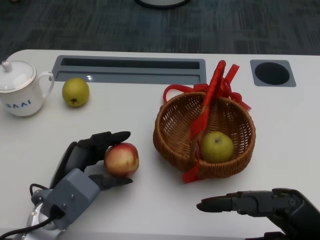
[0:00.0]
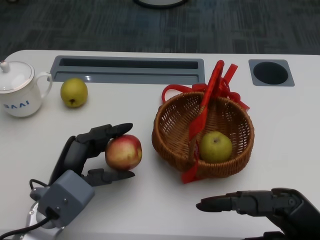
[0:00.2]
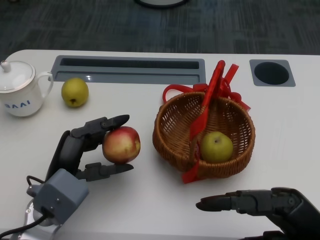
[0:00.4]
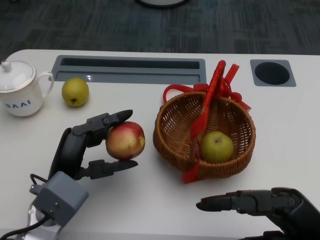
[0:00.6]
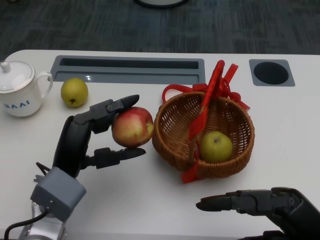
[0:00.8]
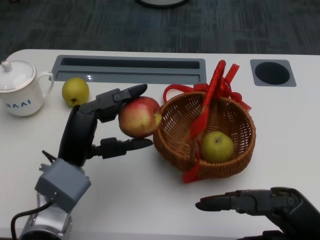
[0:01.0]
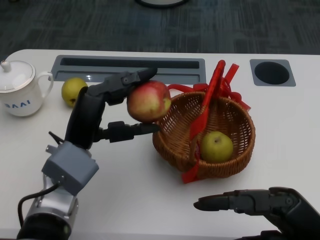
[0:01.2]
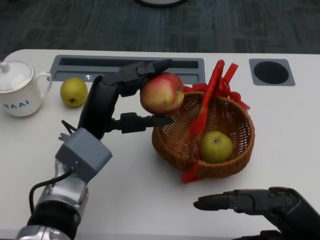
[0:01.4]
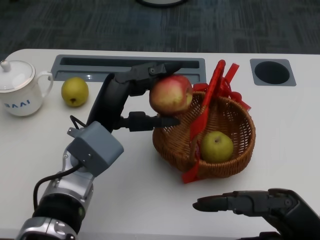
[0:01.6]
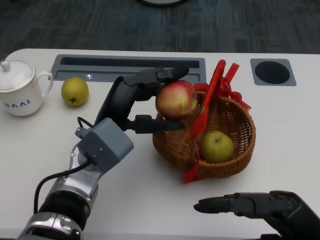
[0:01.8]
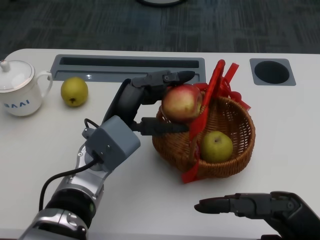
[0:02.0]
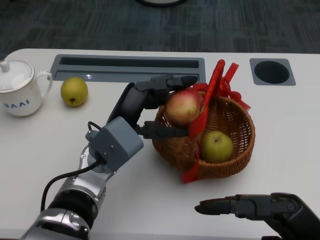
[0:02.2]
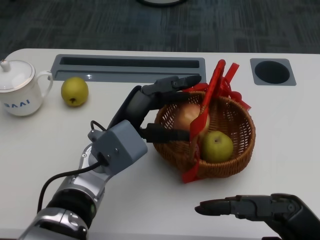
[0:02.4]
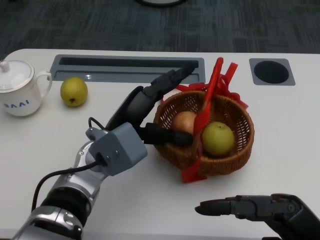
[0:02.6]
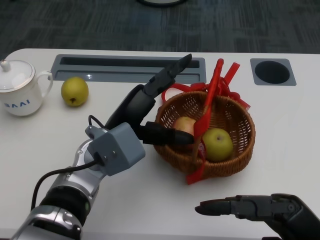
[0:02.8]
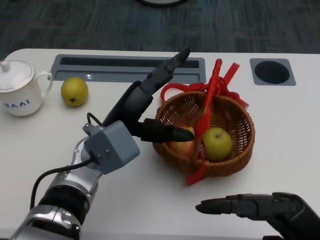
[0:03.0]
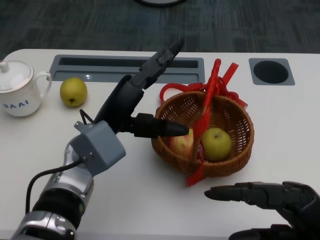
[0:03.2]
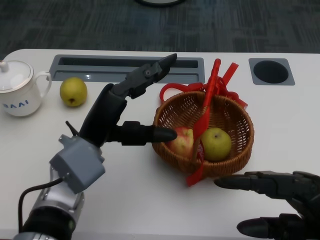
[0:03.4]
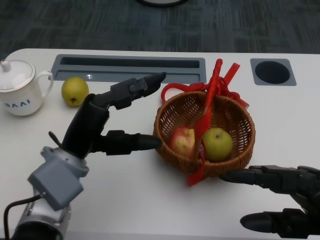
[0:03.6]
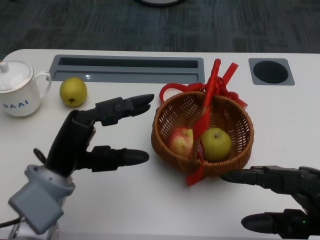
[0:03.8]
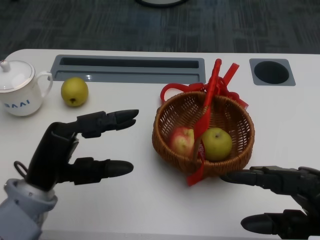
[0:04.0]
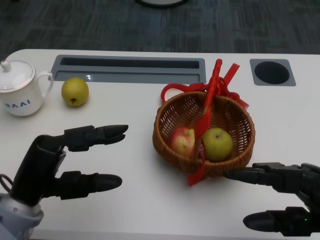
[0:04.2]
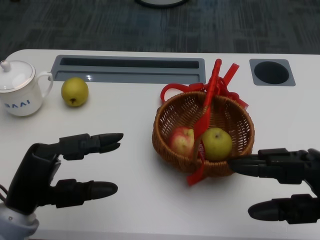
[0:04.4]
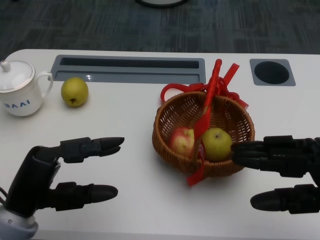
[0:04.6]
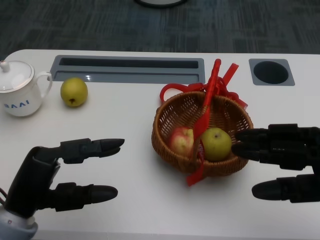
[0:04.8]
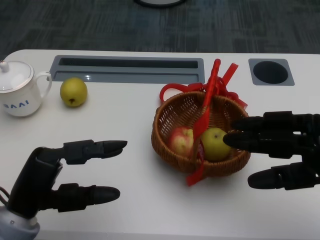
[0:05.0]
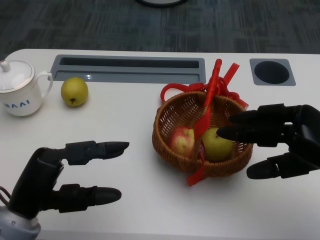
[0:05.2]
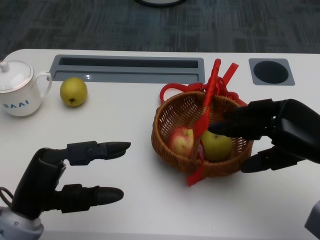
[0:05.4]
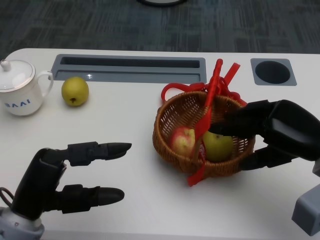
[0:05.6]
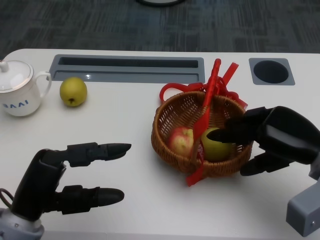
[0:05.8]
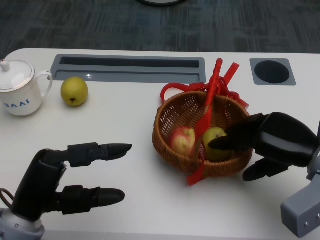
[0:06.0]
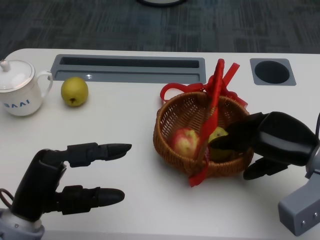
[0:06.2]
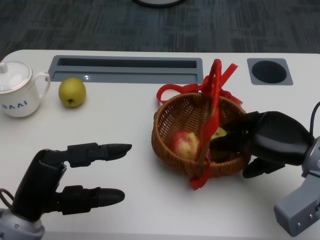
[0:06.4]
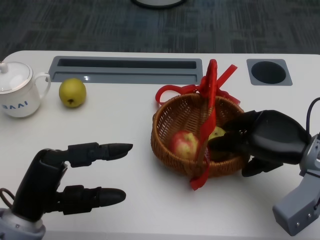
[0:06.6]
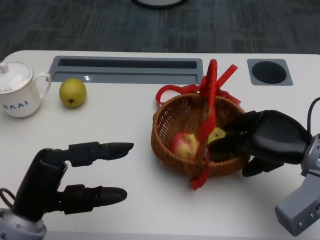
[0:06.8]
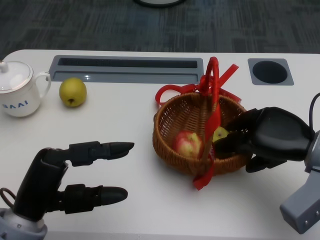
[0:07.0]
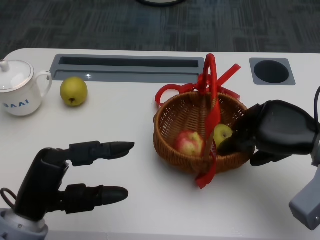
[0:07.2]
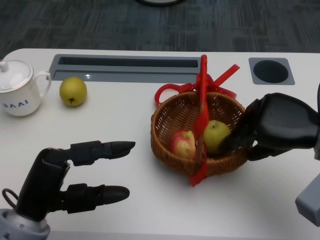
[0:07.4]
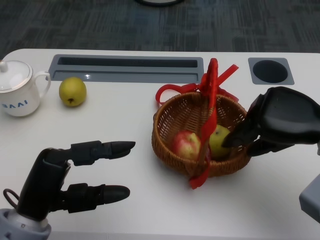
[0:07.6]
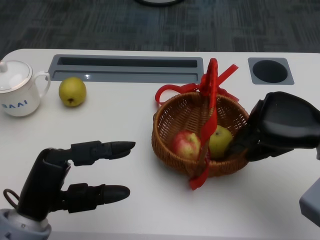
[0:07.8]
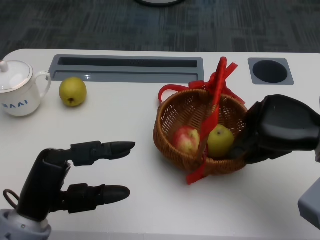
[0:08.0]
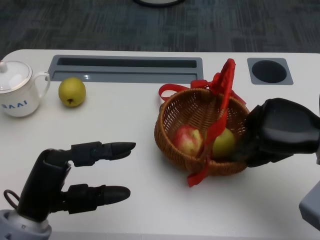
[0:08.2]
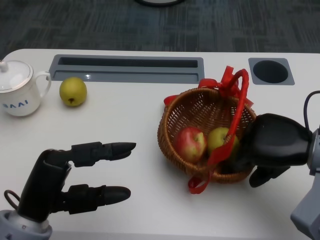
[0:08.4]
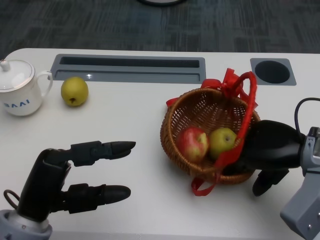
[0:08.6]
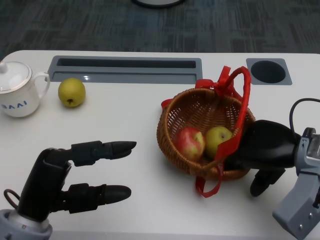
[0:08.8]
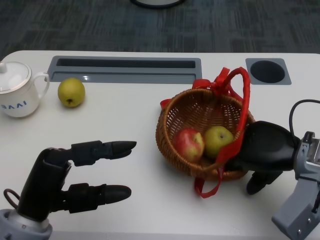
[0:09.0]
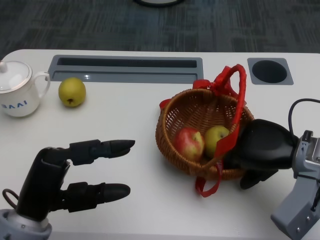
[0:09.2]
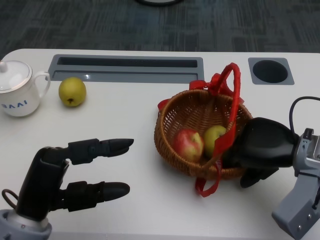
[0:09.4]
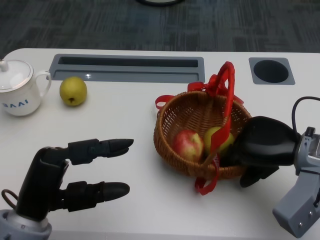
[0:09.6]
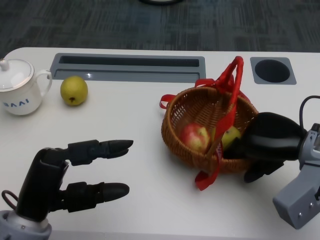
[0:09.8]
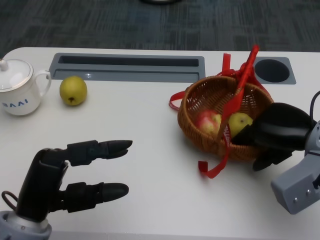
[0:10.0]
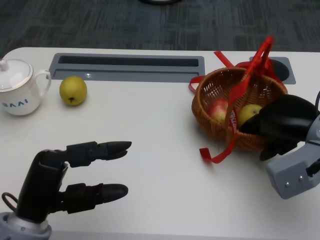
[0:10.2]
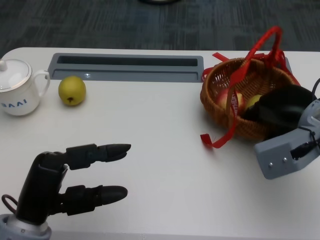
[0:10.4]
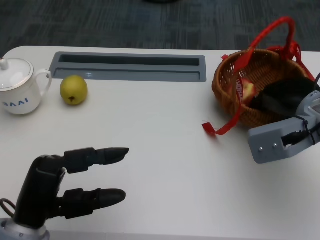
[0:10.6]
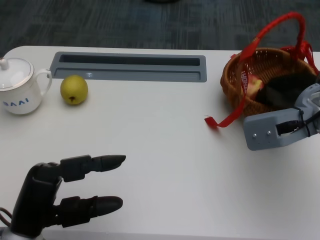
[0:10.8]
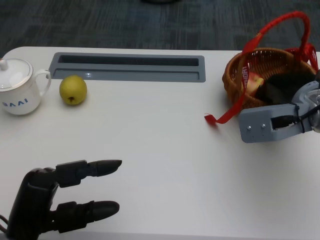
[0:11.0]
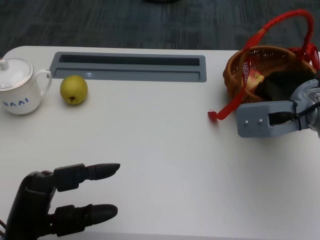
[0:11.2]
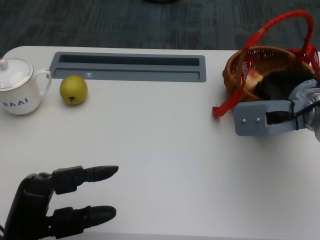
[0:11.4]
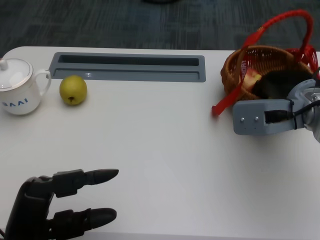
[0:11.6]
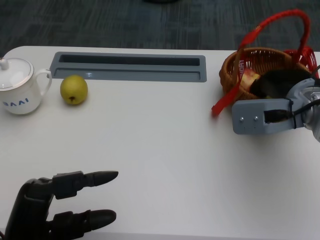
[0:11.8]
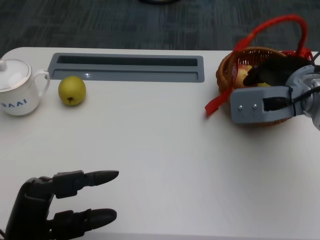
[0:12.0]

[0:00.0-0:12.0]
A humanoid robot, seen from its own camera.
Step, 0:01.2 to 0:06.4: Grasp the basket with the right gripper.
Step, 0:06.6 to 0:08.8: Move the basket to the front of the table with the right gripper.
0:00.0 to 0:01.6: The left hand heads upward and to the right, covering approximately 10 cm.
0:01.6 to 0:03.0: There are only small adjustments of the hands.
0:03.0 to 0:04.4: The right hand ends up some 5 cm from where it was; the left hand heads to the left and backward, covering about 15 cm.
0:04.4 to 0:06.0: The right hand shifts about 10 cm forward.
0:06.0 to 0:07.6: There are only small adjustments of the hands.
0:07.6 to 0:09.0: The right hand moves roughly 5 cm.
0:10.4 to 0:12.0: The right hand ends up approximately 5 cm from where it was.

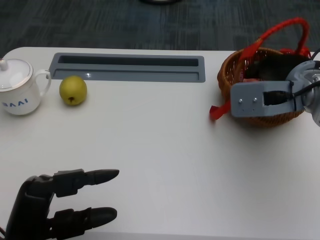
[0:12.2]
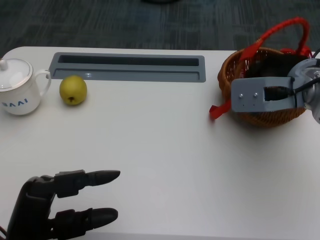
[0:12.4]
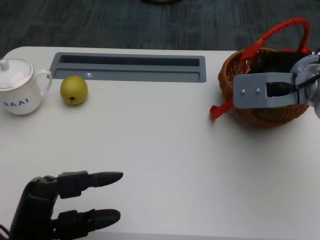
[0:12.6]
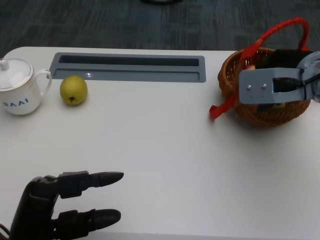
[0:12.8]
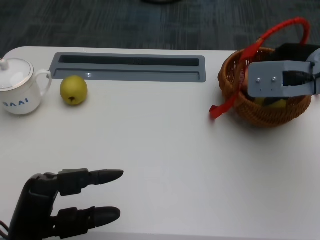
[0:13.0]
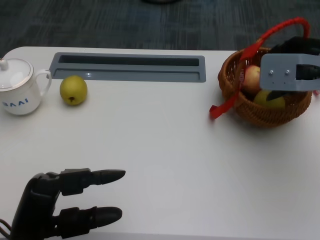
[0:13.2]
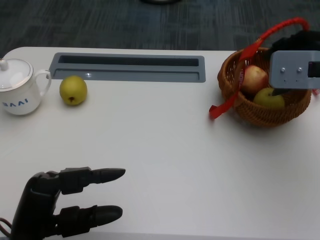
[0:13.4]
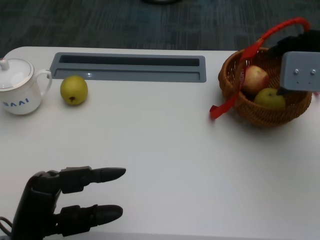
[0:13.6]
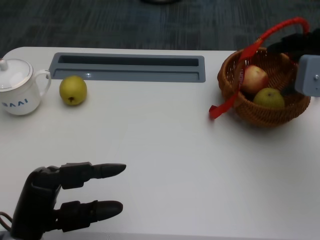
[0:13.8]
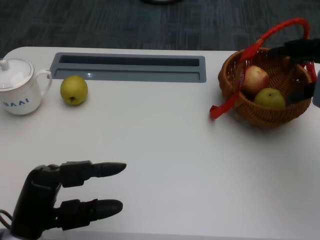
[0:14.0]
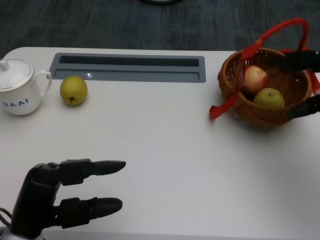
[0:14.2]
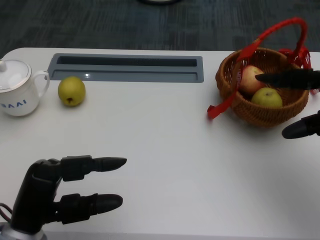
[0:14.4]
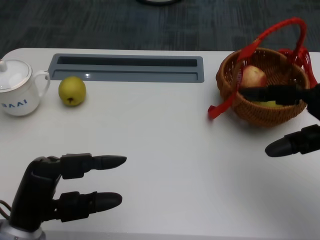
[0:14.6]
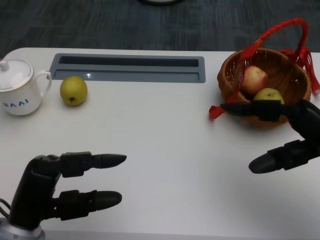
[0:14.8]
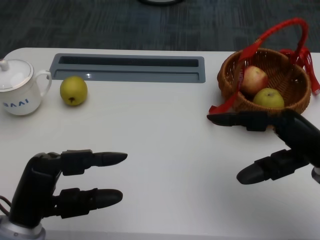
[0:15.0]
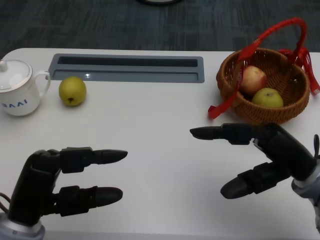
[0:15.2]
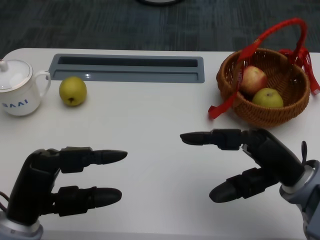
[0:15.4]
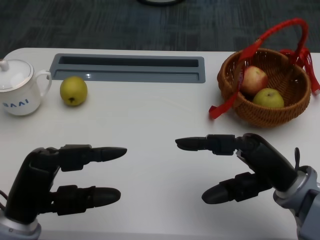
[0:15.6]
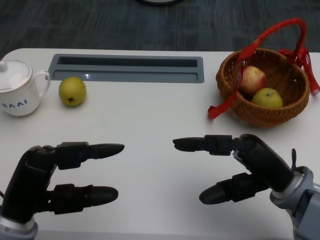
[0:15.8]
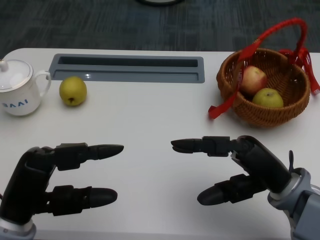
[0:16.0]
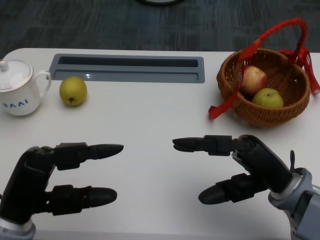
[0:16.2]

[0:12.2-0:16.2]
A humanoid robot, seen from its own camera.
0:12.2 to 0:13.6: The right hand is displaced to the right by some 5 cm.
0:13.6 to 0:14.8: The right hand moves backward and downward, approximately 10 cm.
0:14.8 to 0:16.2: The right hand travels to the left and downward by approximately 10 cm.
